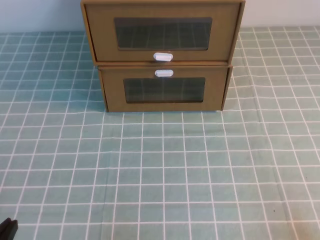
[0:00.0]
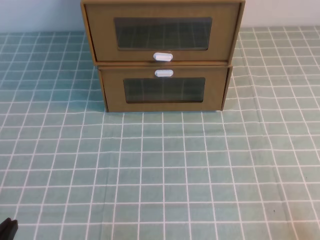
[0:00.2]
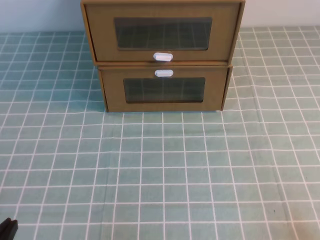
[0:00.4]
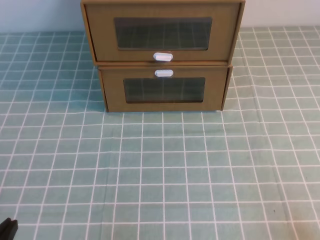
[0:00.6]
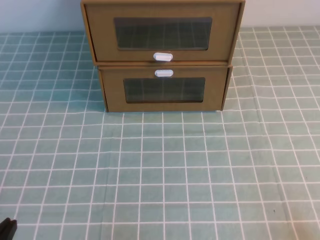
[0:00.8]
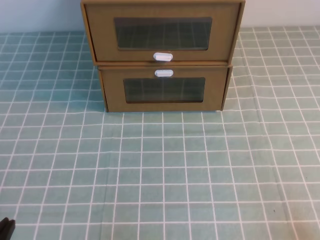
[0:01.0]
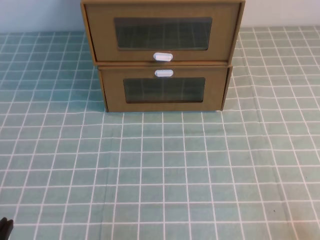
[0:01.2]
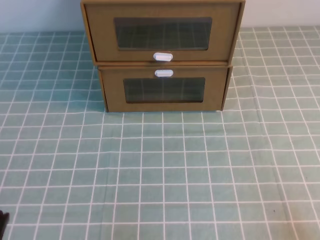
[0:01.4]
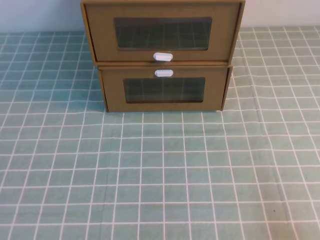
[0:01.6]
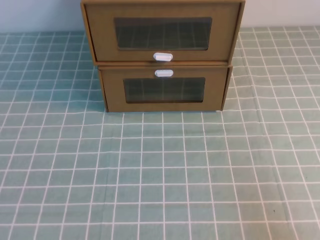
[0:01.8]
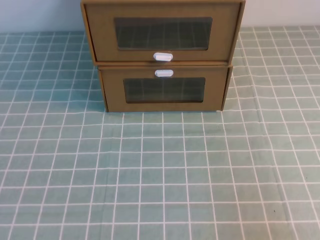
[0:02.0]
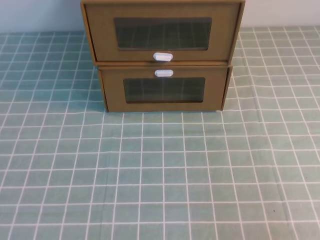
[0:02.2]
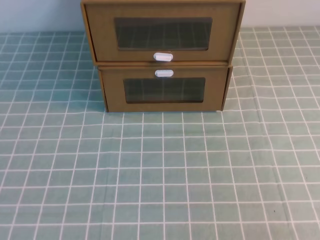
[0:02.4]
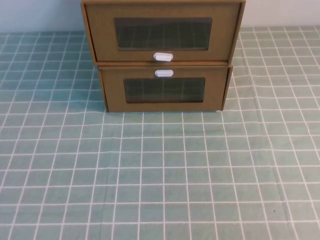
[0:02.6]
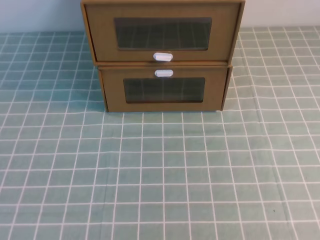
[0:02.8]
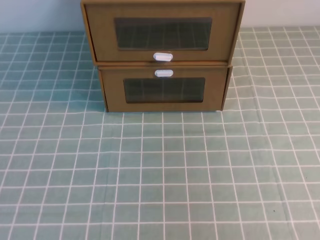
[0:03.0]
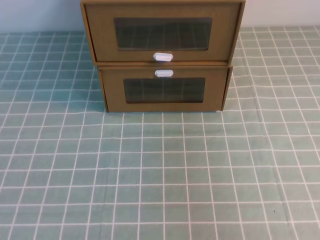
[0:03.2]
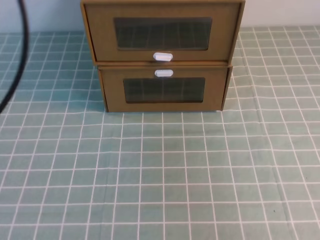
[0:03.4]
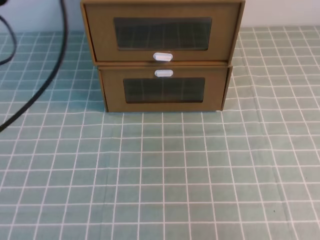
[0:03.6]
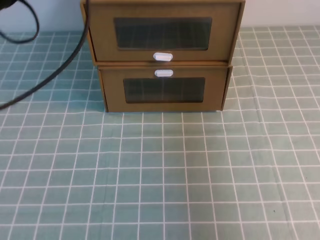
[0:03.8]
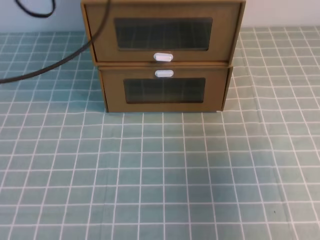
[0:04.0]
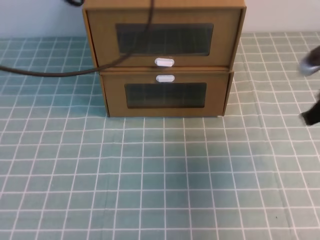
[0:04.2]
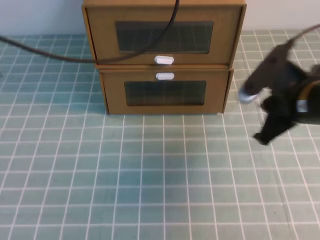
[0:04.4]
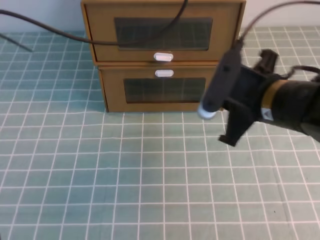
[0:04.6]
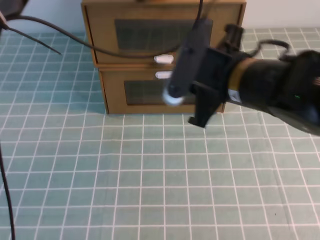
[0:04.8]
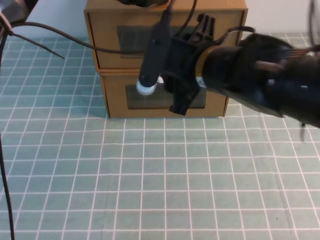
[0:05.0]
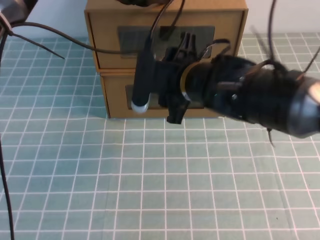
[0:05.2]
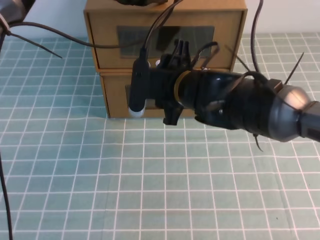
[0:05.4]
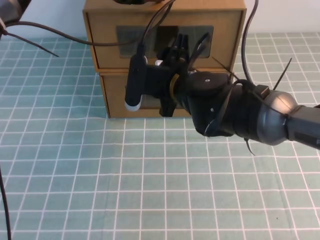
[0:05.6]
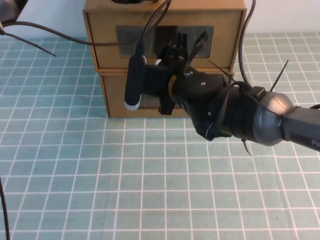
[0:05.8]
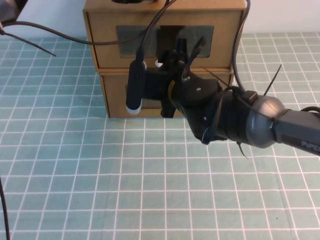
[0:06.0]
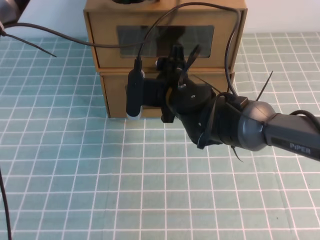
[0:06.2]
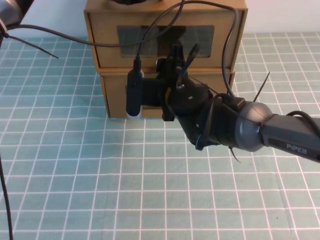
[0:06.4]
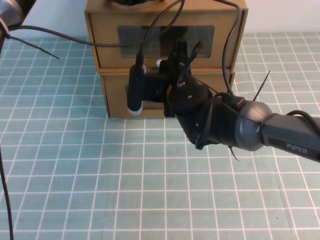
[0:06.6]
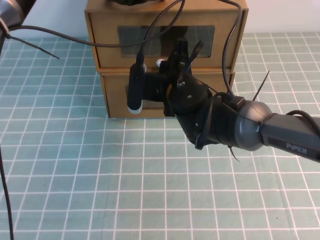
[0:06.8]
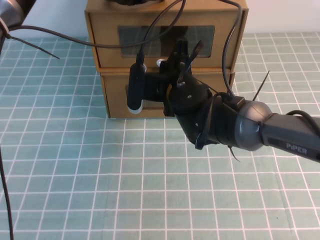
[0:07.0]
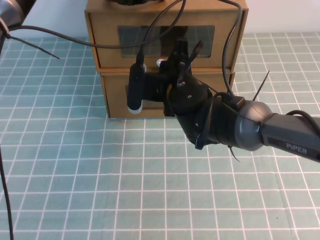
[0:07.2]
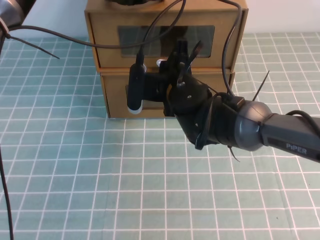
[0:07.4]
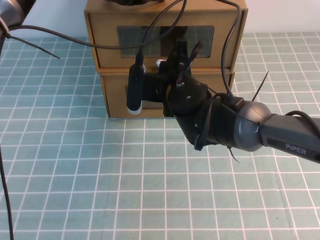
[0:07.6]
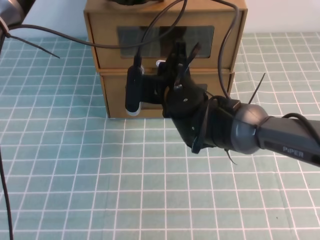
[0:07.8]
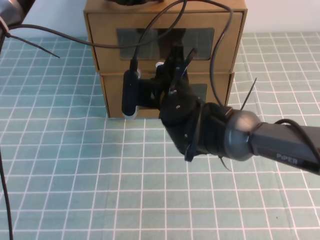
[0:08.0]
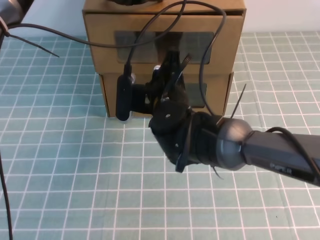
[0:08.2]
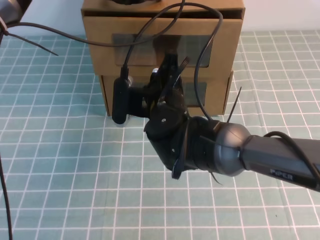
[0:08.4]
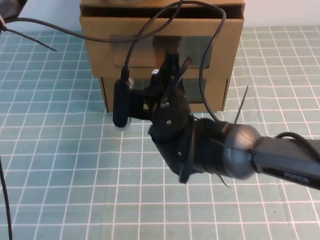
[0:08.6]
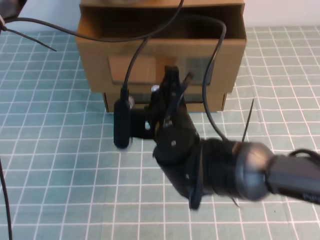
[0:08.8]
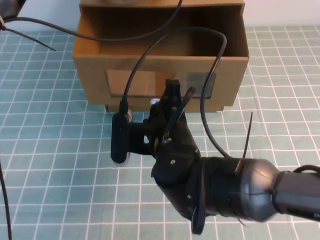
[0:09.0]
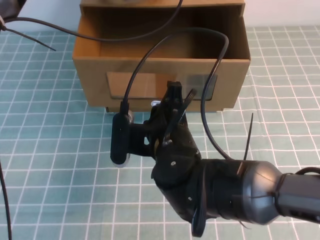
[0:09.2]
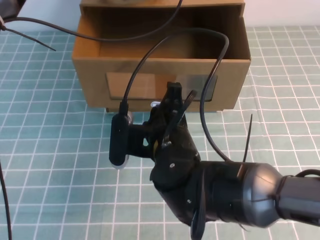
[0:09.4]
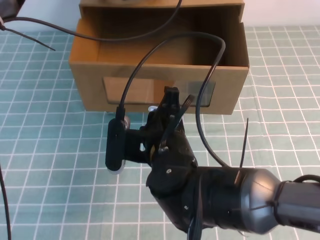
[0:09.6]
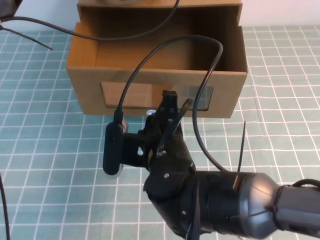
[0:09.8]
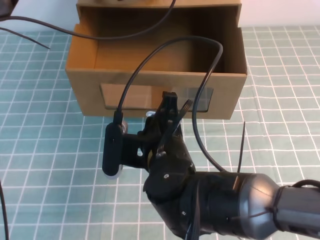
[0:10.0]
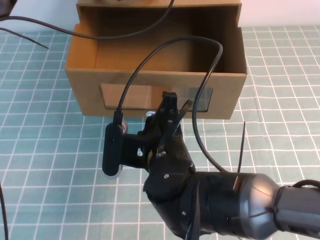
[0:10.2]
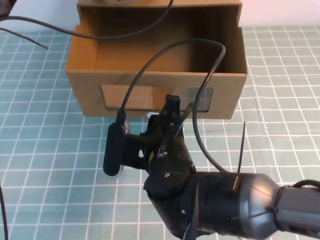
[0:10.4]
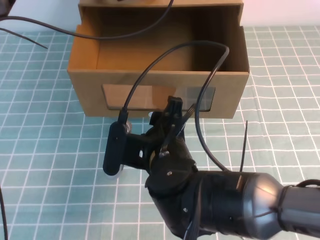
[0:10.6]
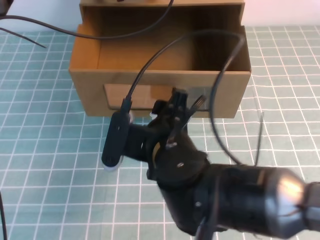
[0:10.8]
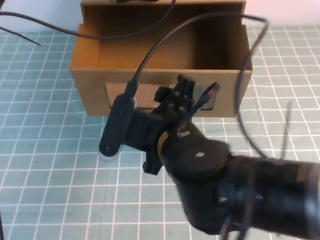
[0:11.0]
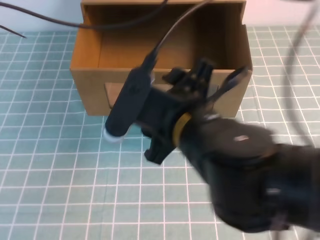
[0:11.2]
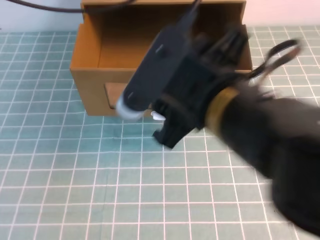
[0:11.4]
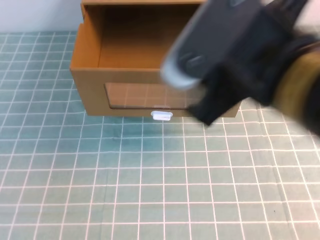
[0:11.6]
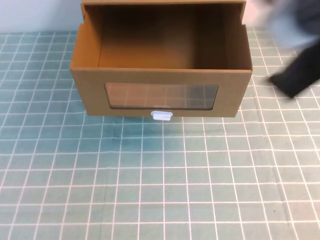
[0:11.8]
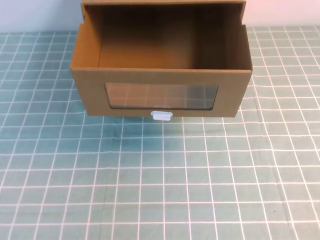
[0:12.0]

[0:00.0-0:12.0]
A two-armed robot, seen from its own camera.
Task of the whole recording: open the shoebox on the cyan tablecloth.
0:03.0 to 0:04.4: The left gripper moves forward and to the right, roughly 35 cm. The right gripper shifts roughly 35 cm forward, downward and to the left.
0:04.4 to 0:06.0: The right gripper travels to the left by about 20 cm, and opens up, while the left gripper moves forward and downward, about 10 cm.
0:06.0 to 0:07.6: The right gripper closes its fingers.
0:07.6 to 0:09.0: The right gripper shifts roughly 10 cm backward.
0:09.0 to 0:10.4: The right gripper opens up.
0:10.4 to 0:12.0: The left gripper shifts some 30 cm backward and upward. The right gripper shifts roughly 35 cm upward, to the right and backward, and opens and closes again.

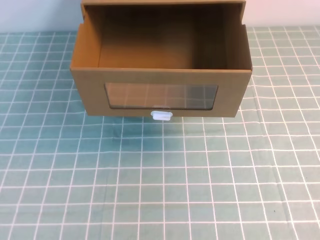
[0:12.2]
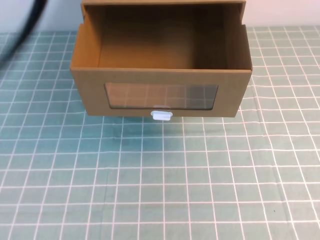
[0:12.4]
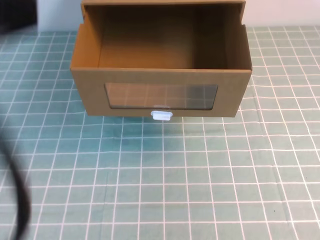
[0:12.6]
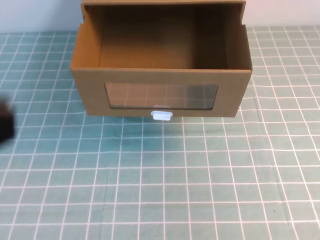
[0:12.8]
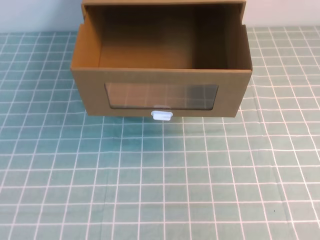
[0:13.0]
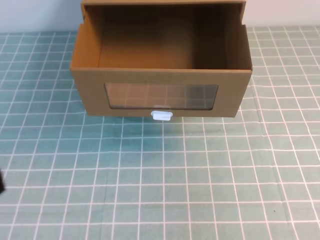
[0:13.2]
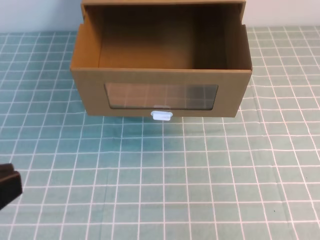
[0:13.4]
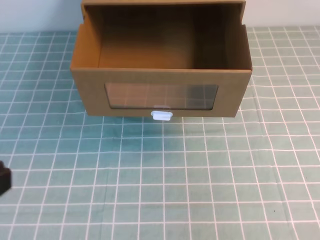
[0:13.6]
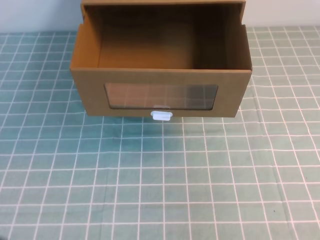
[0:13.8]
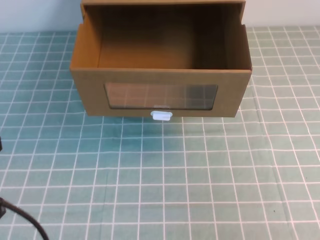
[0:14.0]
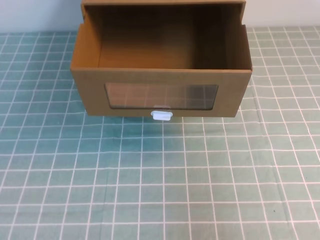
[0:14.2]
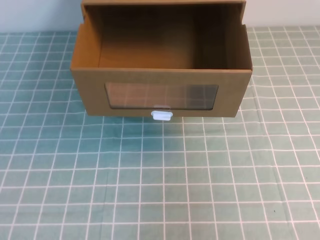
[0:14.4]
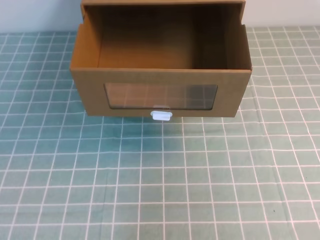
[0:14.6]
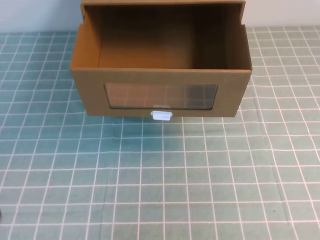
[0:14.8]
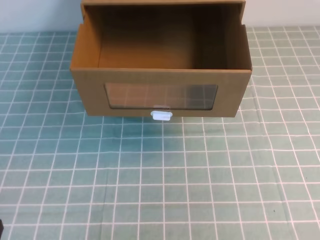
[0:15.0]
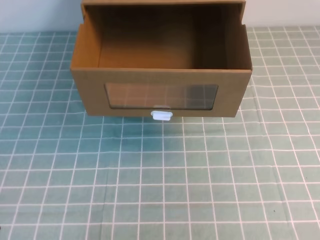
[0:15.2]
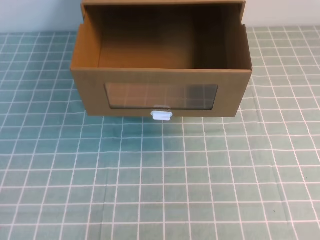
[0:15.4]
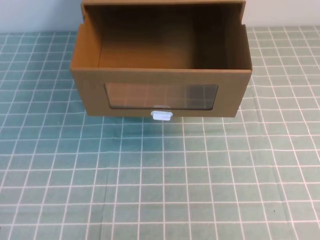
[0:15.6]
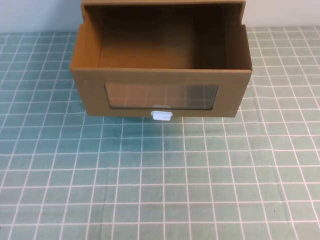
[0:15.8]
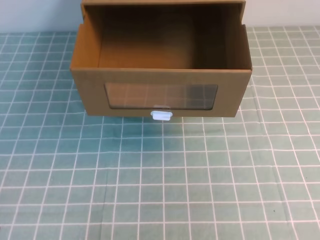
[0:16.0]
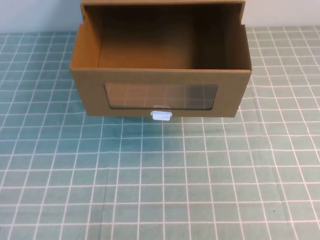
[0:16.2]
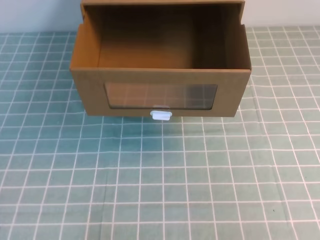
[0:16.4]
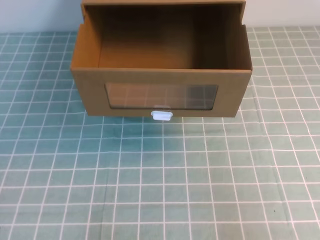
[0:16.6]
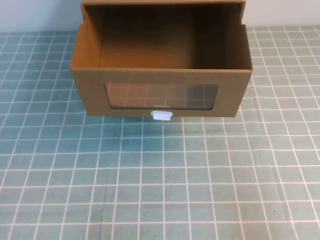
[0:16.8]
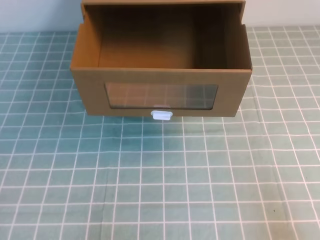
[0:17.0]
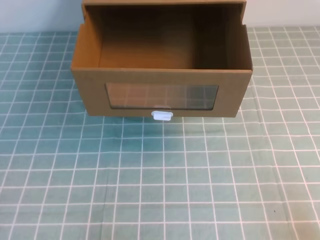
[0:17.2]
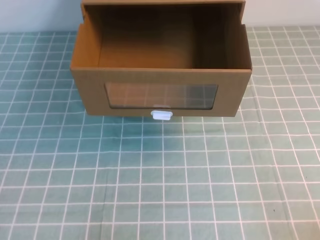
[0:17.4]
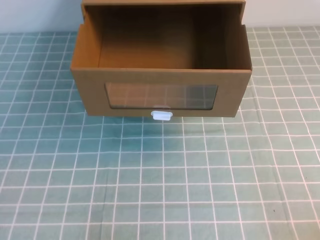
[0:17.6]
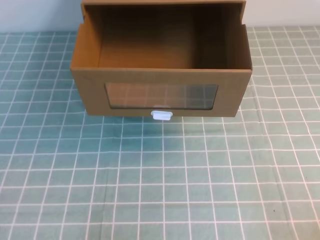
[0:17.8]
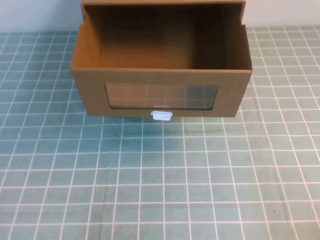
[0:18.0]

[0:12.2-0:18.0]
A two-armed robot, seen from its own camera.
Task of the whole recording: open the shoebox on the cyan tablecloth.
Step, 0:12.2 to 0:18.0: Open the shoe box.
0:12.2 to 0:13.6: The left gripper heads downward and backward, covering approximately 25 cm. The right gripper goes about 15 cm downward.
0:16.6 to 0:18.0: The right gripper moves downward, some 15 cm.

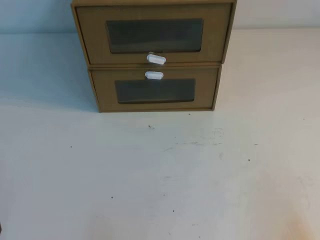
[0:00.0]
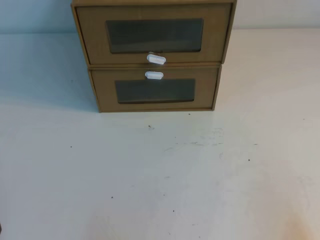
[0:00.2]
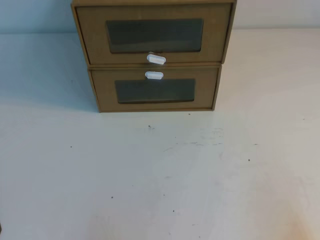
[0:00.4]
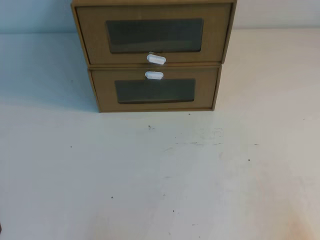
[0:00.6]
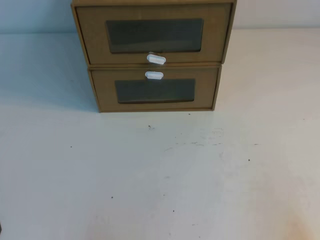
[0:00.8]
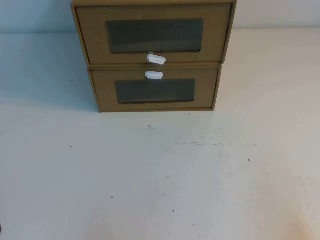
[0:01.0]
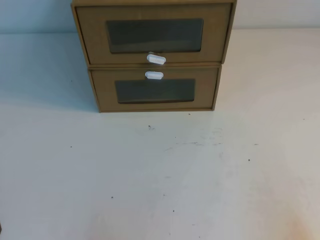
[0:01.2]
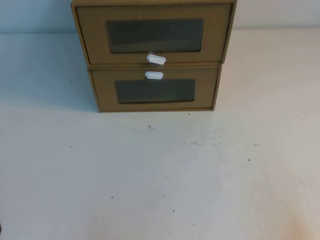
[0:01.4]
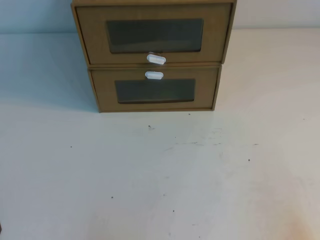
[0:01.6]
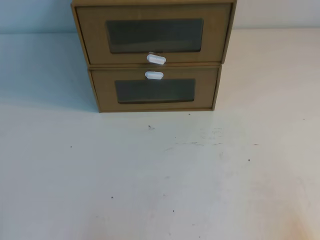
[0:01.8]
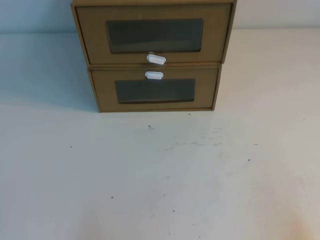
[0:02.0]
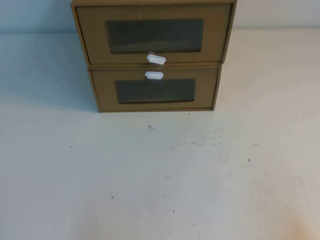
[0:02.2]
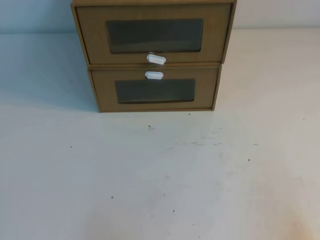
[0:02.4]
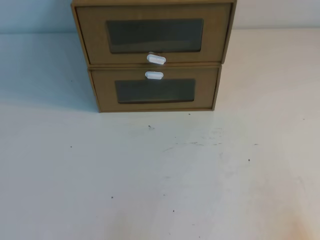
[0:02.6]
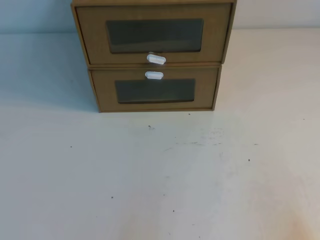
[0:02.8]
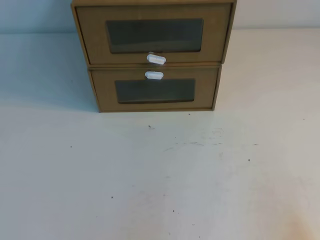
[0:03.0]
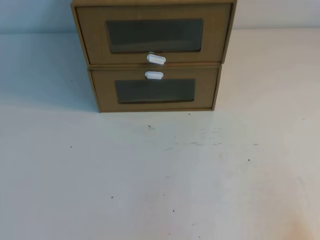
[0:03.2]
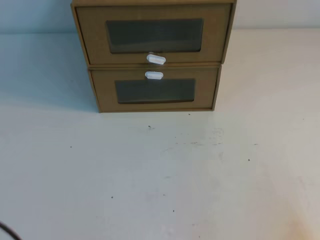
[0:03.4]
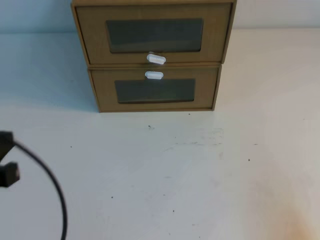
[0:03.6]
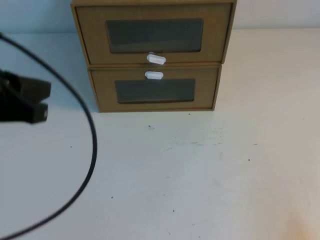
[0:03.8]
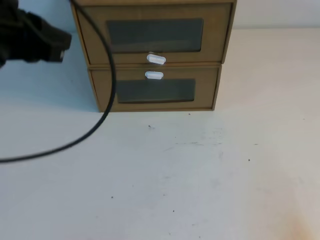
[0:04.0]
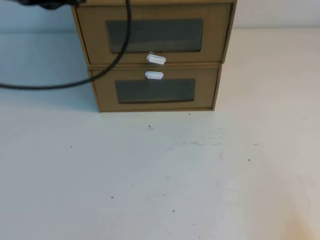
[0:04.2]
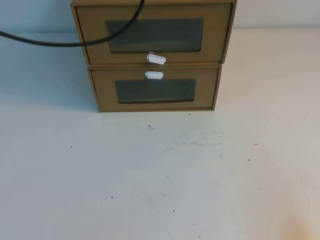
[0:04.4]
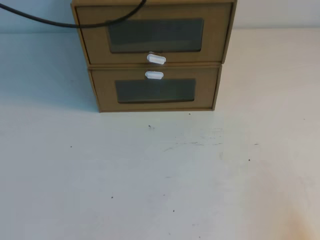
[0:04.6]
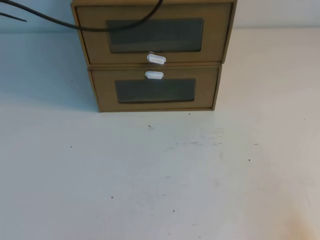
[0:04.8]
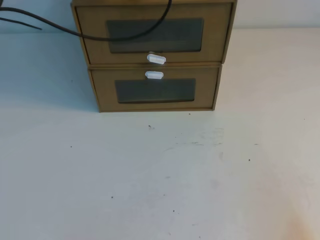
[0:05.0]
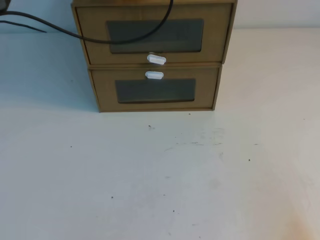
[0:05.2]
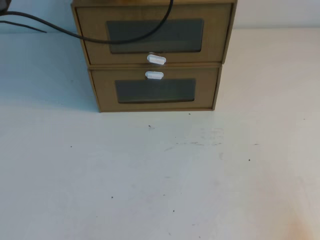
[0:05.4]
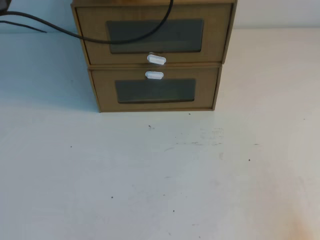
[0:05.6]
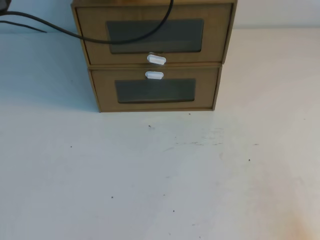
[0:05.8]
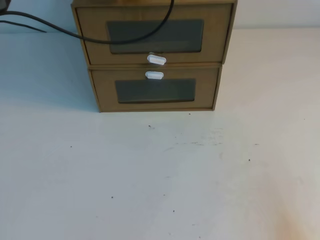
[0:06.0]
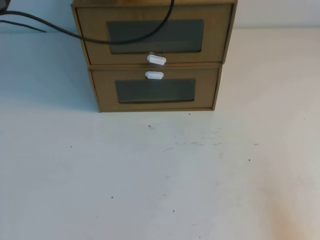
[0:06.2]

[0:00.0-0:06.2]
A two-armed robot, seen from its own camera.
Task of the whole recording: open the shoebox on the table.
0:00.0 to 0:01.6: Both grippers stay about where they are.
0:03.2 to 0:04.6: The left gripper goes approximately 40 cm forward and upward.
0:04.6 to 0:06.2: The left gripper heads downward and forward, covering roughly 10 cm.
